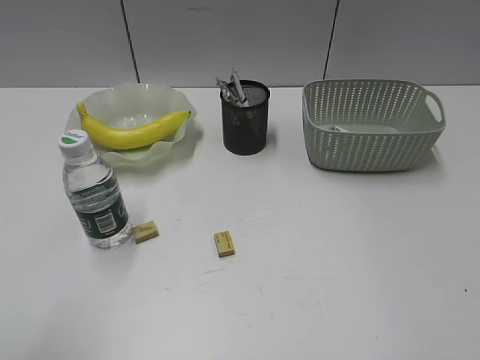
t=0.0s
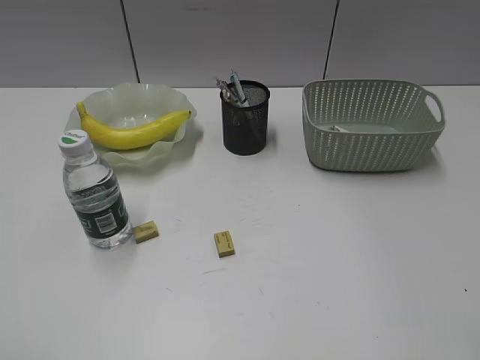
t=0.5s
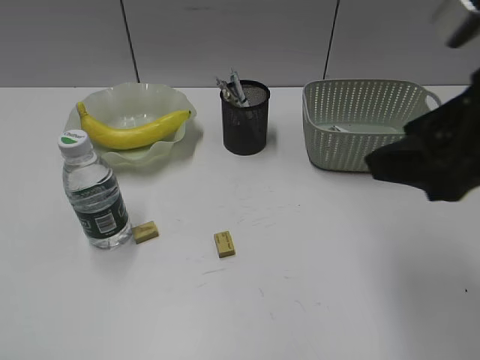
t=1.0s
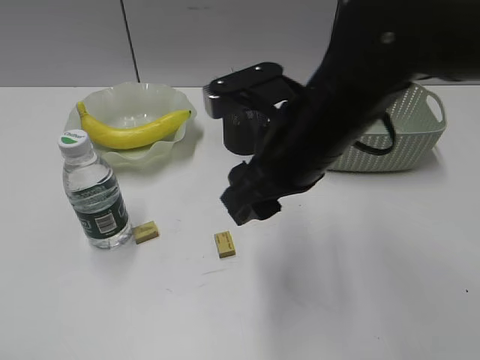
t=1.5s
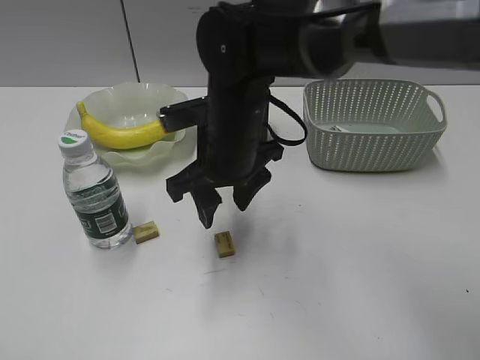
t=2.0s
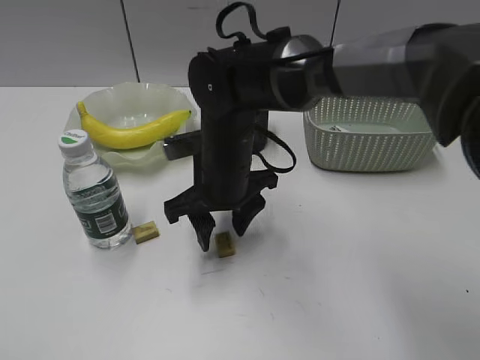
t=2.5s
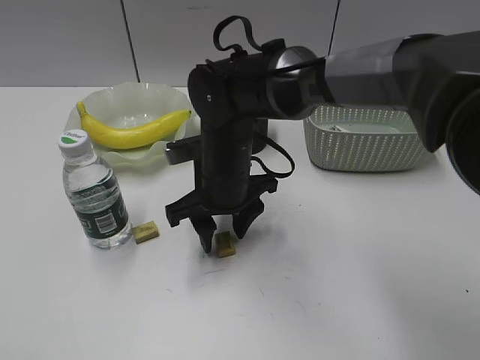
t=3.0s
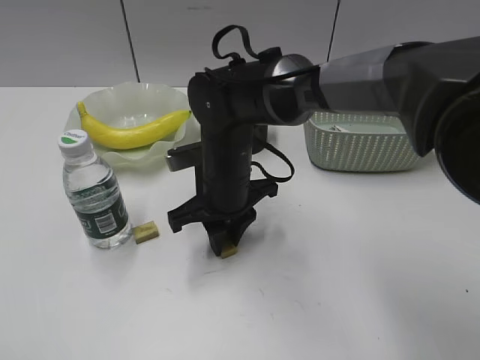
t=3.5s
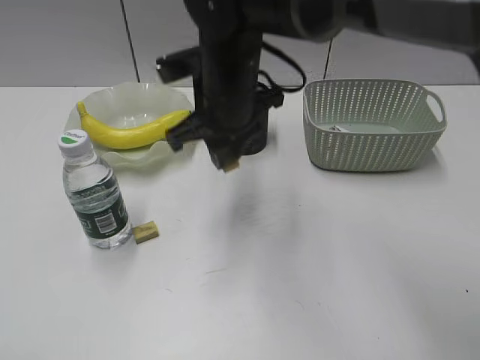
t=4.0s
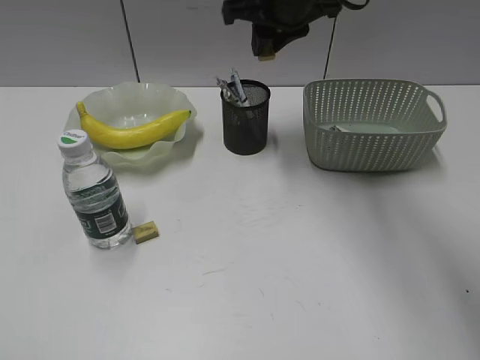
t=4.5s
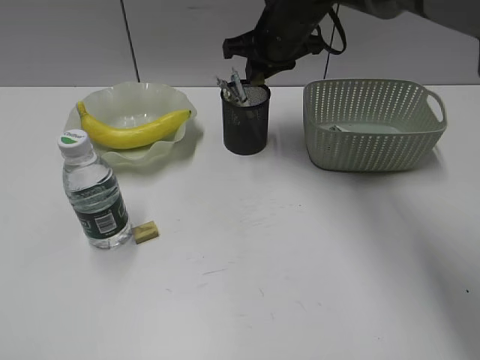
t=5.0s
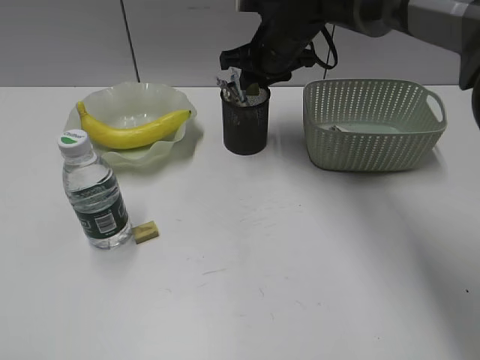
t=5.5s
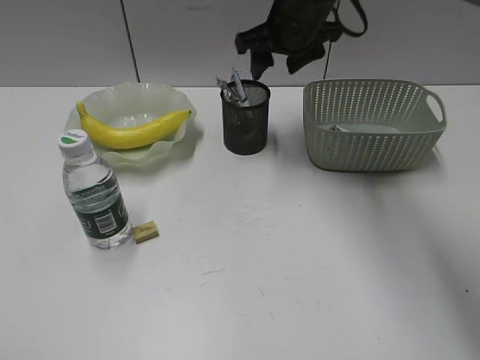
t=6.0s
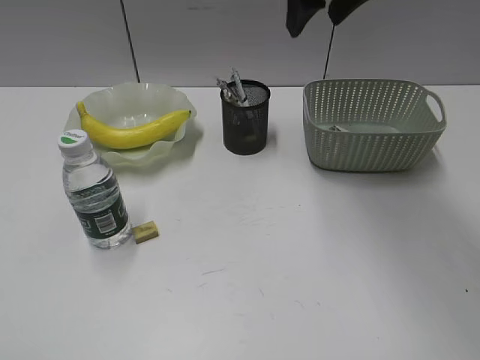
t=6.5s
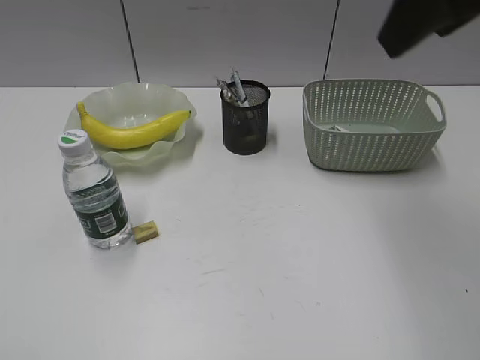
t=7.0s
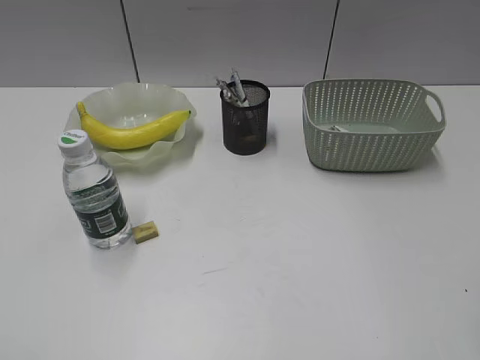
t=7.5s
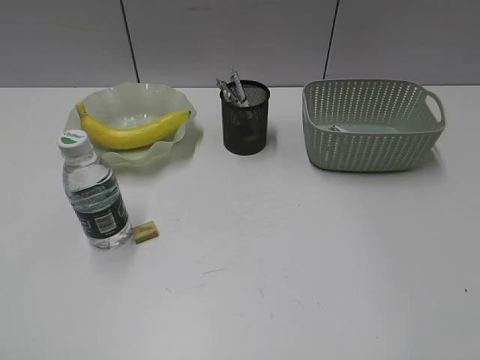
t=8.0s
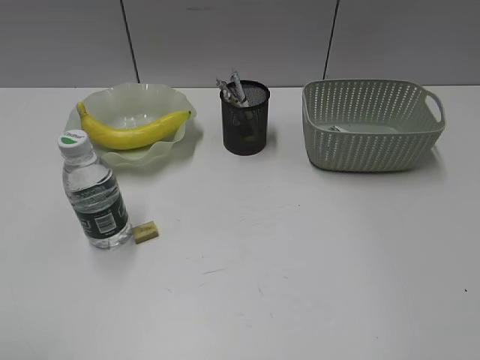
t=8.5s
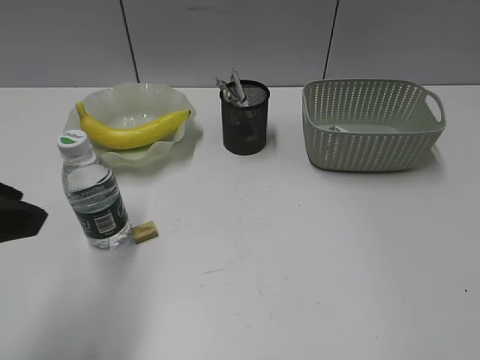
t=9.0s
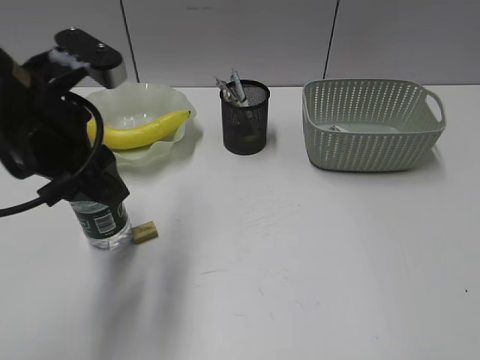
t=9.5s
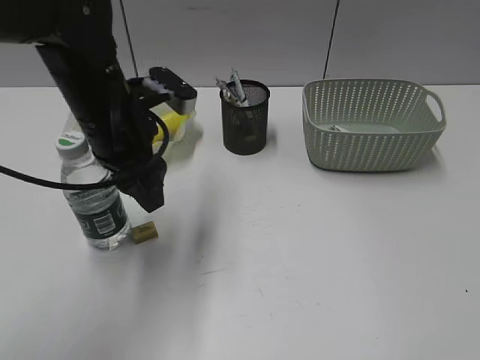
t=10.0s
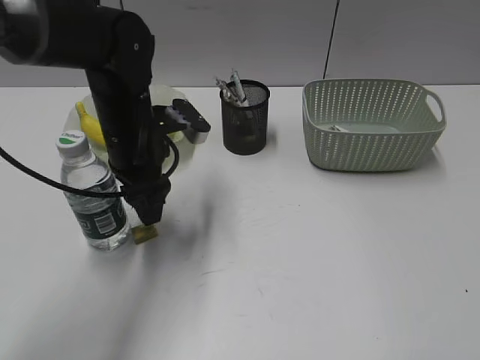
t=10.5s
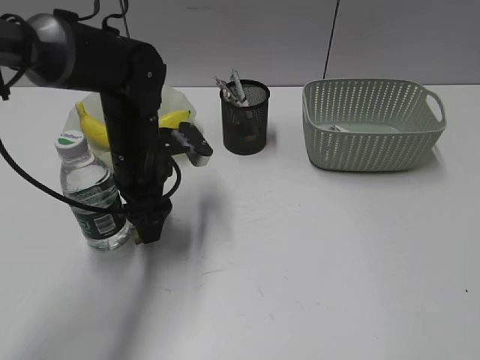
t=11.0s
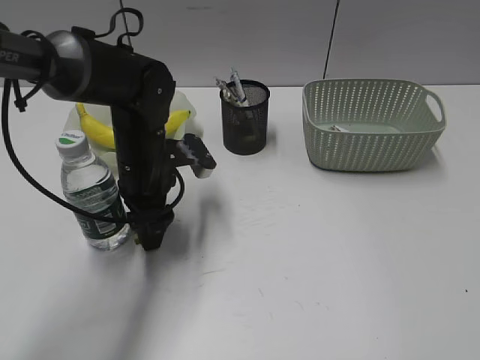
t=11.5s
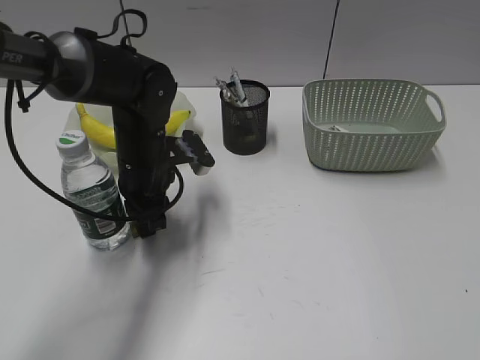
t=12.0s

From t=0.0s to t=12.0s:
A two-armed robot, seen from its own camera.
Step, from t=0.0s to t=3.5s: Grasp the eraser with right gripper.
Step, from t=4.0s to t=5.5s: Place the eraser in pen holder with right gripper.
Step, from t=6.0s to t=12.0s: Grasp the eraser with left gripper.
From t=0.0s to t=2.0s: The left gripper shifts some 10 cm backward. Meanwhile the right gripper goes about 50 cm forward, to the left and downward.
From t=2.0s to t=4.0s: The right gripper moves roughly 5 cm downward and comes back, and closes up.
From t=4.0s to t=6.0s: The right gripper goes about 15 cm forward and to the right, and opens its fingers.
From t=6.0s to t=8.0s: The right gripper shifts some 50 cm backward and to the right.
From t=8.0s to t=10.0s: The left gripper travels forward and to the right by about 35 cm.
From t=10.0s to t=12.0s: The left gripper moves downward, some 10 cm, and closes.

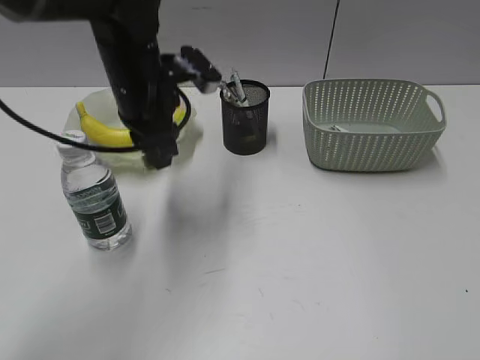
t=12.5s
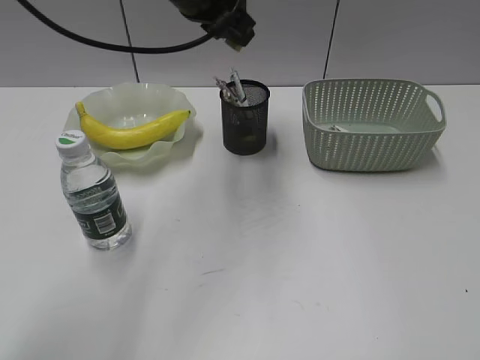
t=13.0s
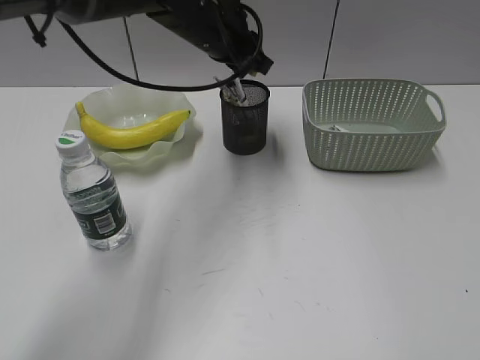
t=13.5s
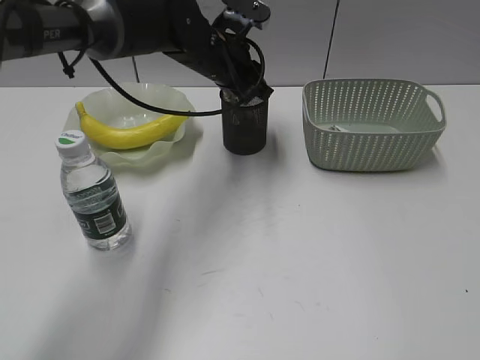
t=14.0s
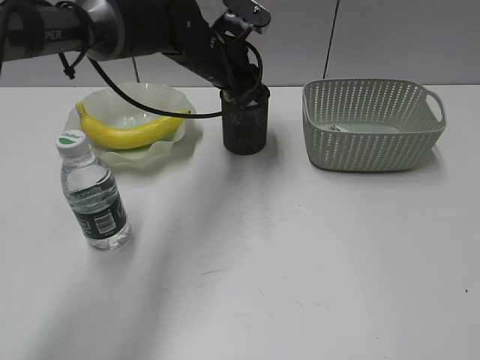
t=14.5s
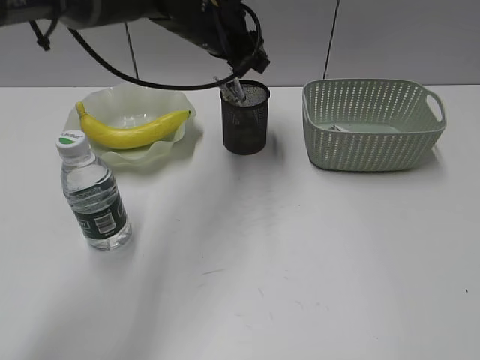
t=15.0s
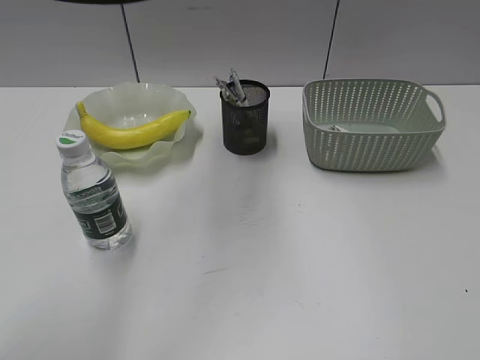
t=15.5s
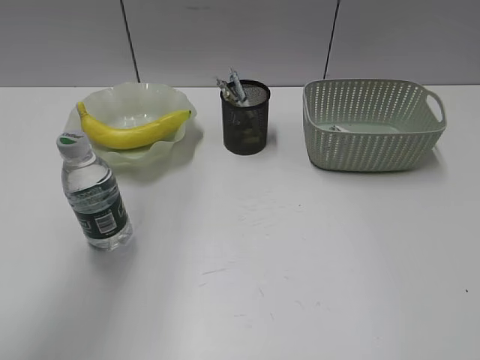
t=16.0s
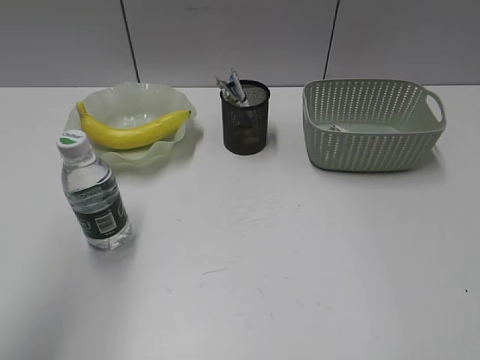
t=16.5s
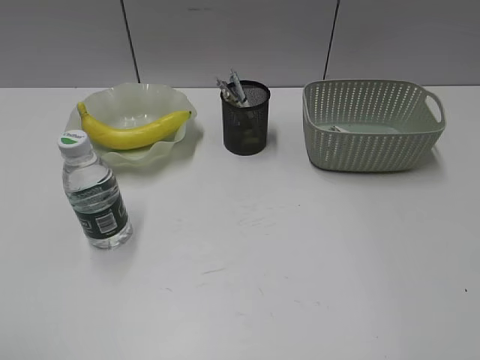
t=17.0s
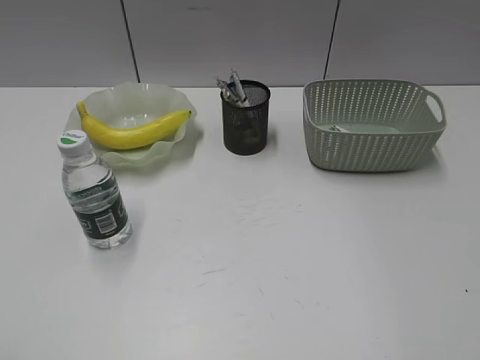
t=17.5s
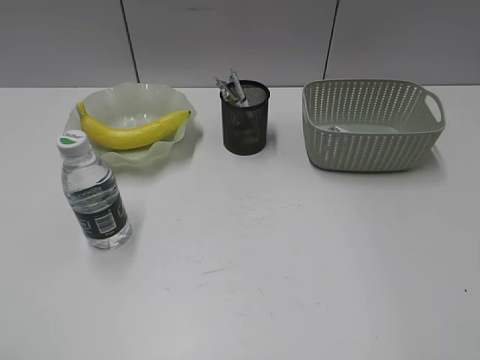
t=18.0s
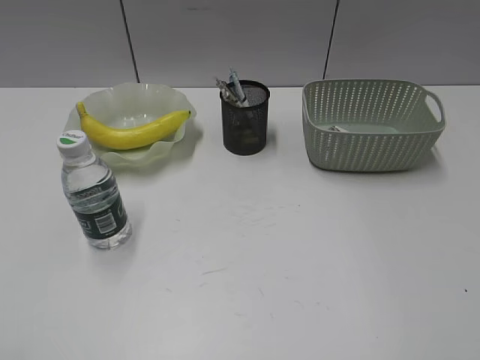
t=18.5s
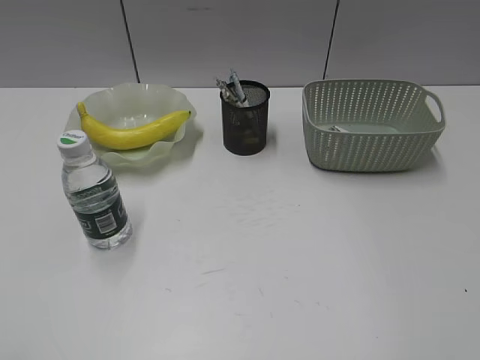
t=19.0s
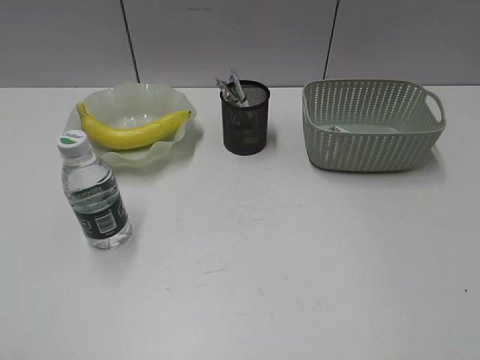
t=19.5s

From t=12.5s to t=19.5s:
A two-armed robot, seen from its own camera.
Step, from t=12.5s to t=14.5s: Place the eraser in pen holder with left gripper.
From t=12.5s to t=14.5s: The left gripper is displaced forward and to the right by about 10 cm, and moves approximately 10 cm upward and comes back.
From t=14.5s to t=16.0s: The left gripper moves upward, to the left and backward, roughly 35 cm.
From t=16.0s to t=17.5s: The left gripper shifts approximately 35 cm backward and downward.

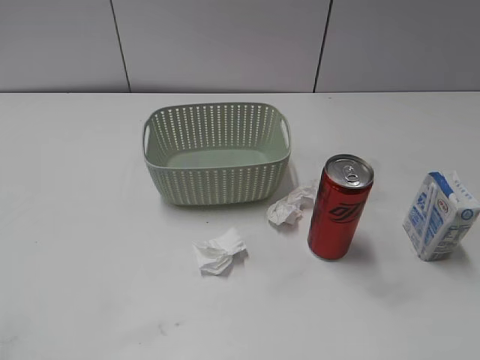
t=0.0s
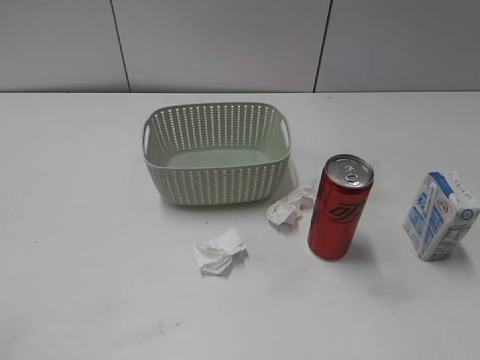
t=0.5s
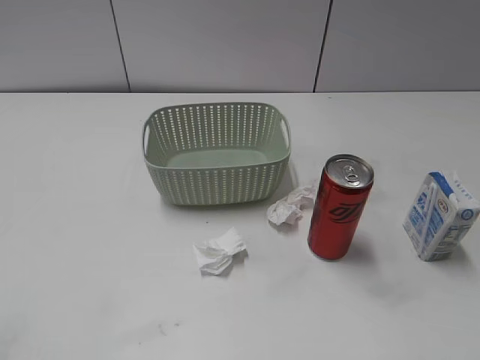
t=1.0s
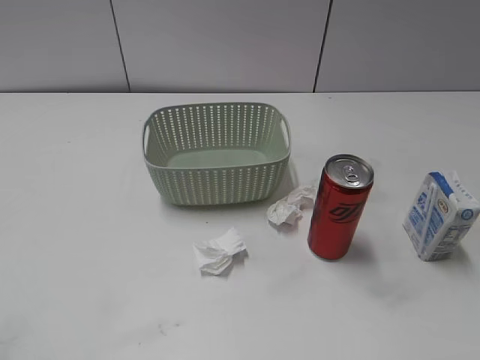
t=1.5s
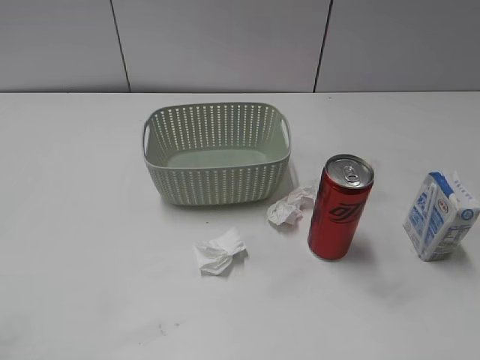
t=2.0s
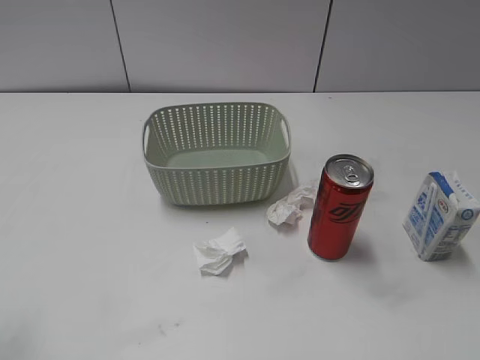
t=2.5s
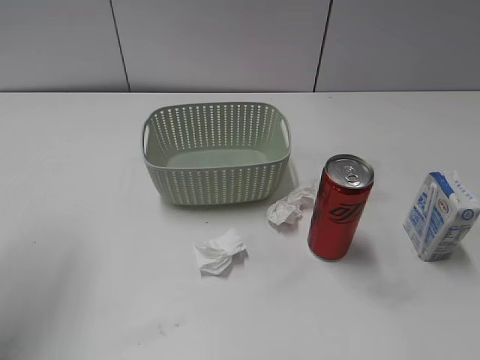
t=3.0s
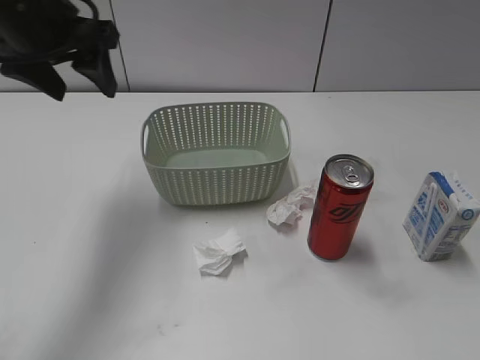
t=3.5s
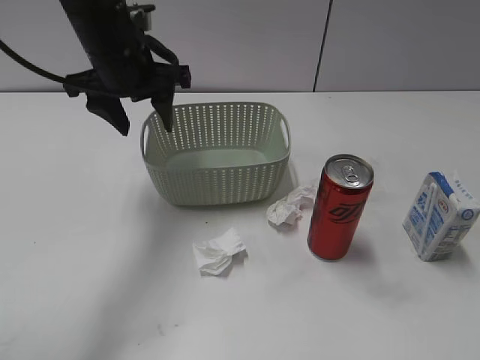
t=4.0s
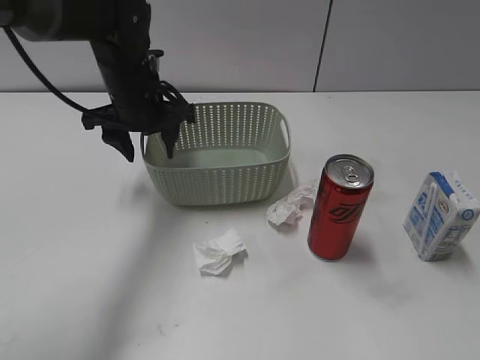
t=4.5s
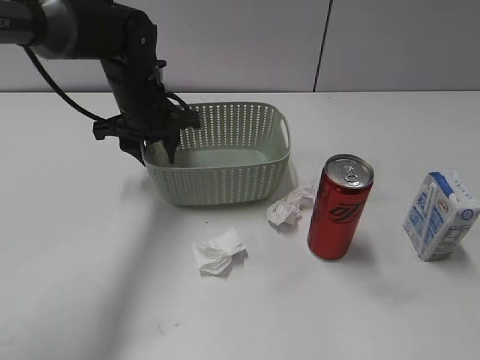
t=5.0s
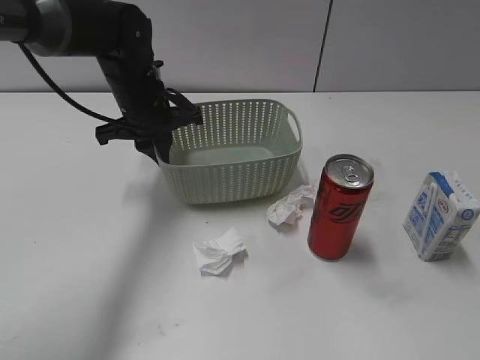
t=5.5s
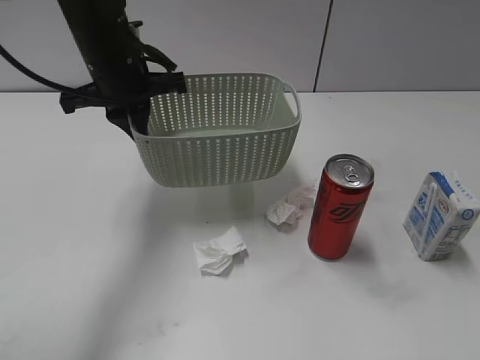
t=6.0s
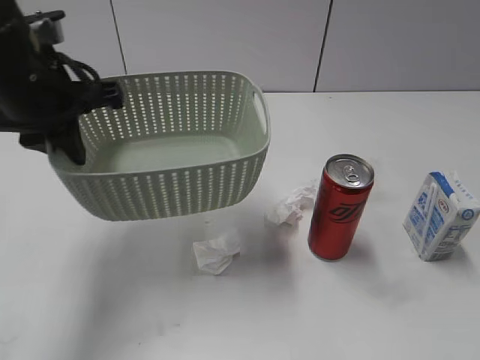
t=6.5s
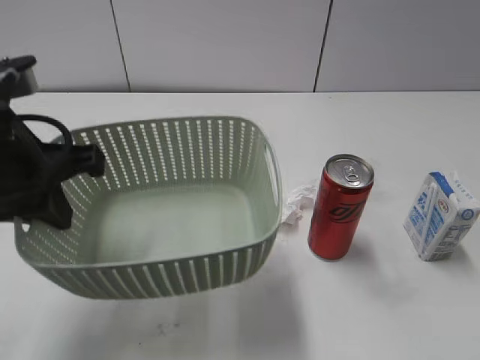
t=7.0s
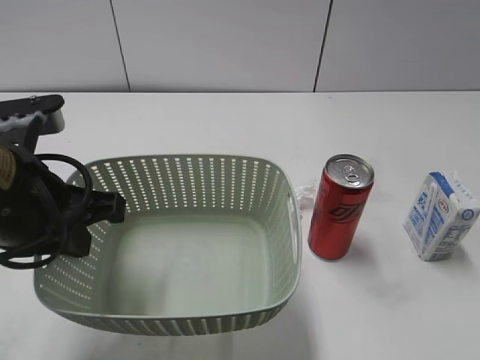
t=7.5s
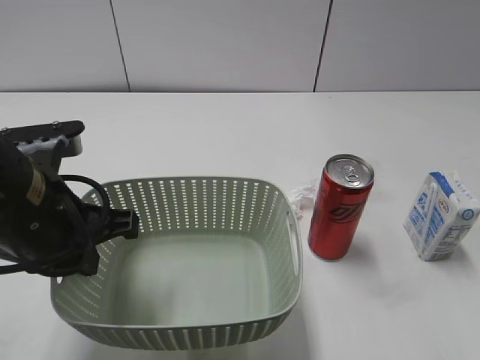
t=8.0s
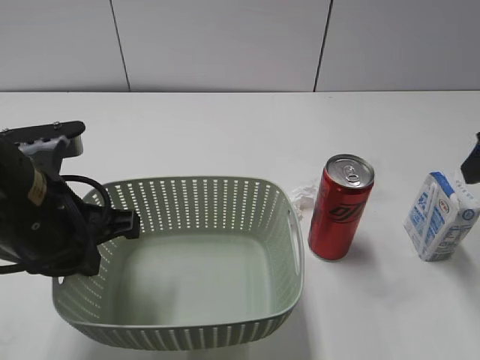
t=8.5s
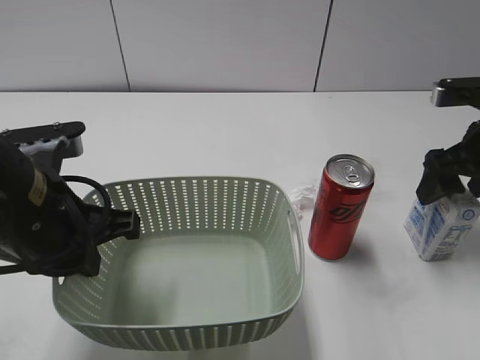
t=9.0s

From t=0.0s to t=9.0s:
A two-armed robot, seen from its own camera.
Step, from t=3.5s to t=5.0s: Grasp the basket with left gripper.
Step, from t=5.5s to t=7.5s: Lift the basket with left gripper.
From t=2.0s to t=4.5s: The left gripper shifts about 50 cm forward and to the right.
From t=4.5s to t=7.0s: The left gripper is displaced backward by about 20 cm, and closes up.
From t=7.0s to t=9.0s: The right gripper shifts roughly 30 cm forward; the left gripper changes place by about 5 cm.
